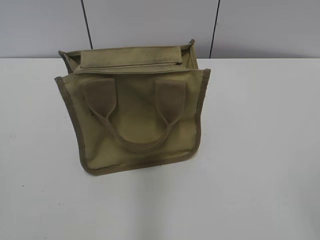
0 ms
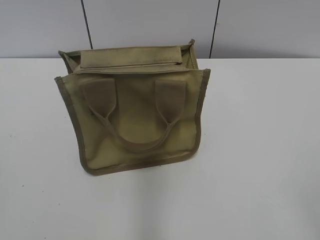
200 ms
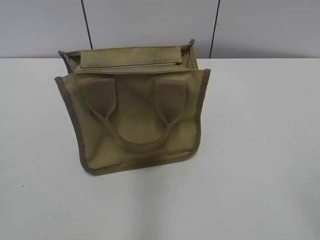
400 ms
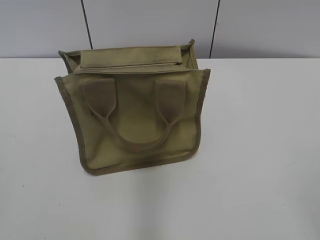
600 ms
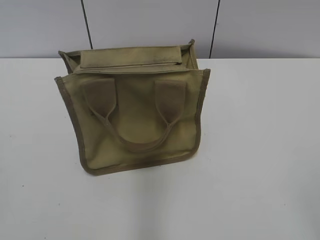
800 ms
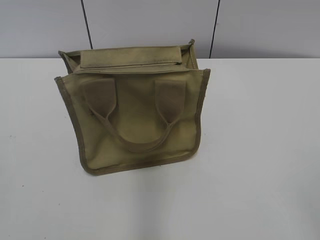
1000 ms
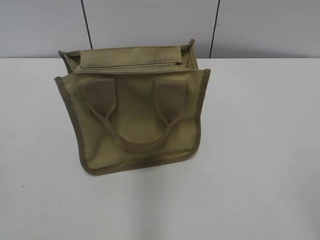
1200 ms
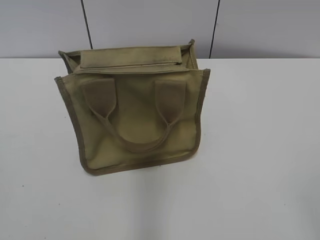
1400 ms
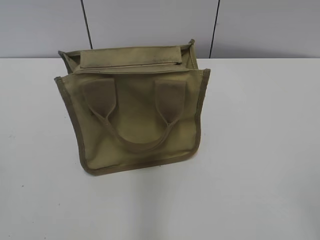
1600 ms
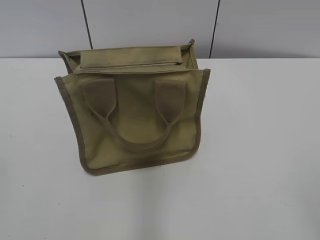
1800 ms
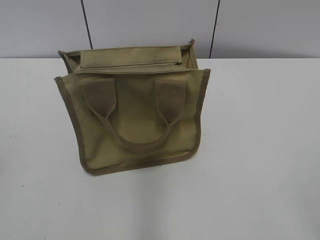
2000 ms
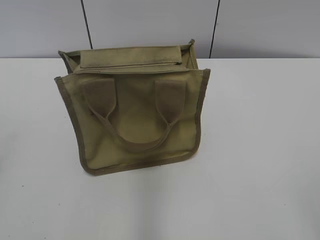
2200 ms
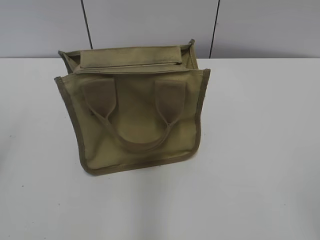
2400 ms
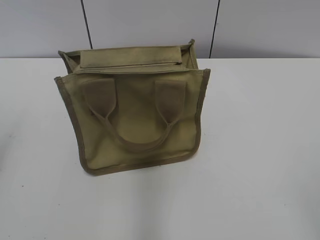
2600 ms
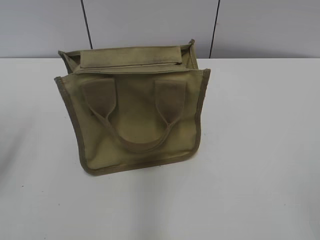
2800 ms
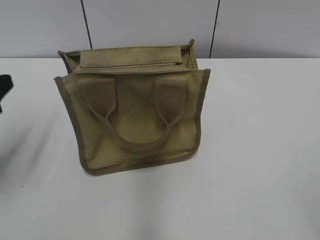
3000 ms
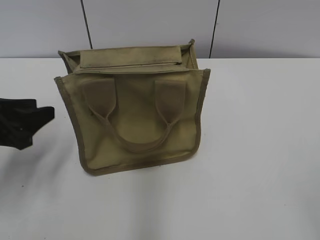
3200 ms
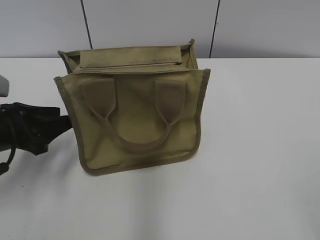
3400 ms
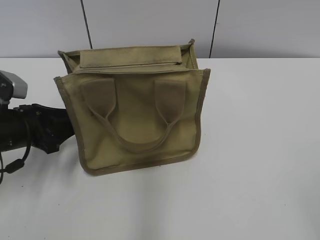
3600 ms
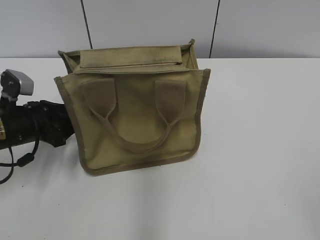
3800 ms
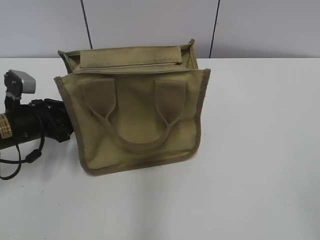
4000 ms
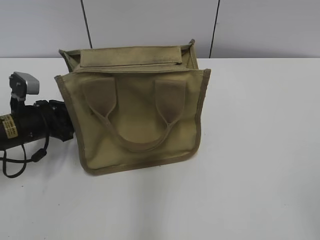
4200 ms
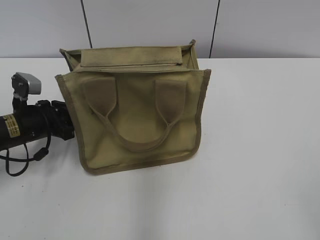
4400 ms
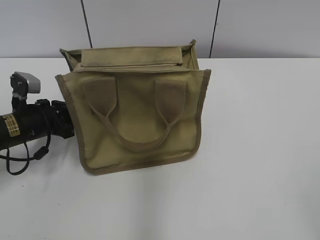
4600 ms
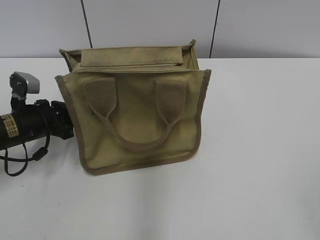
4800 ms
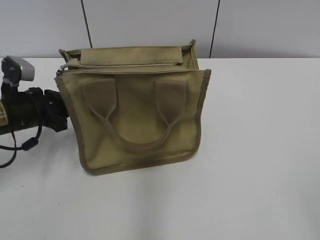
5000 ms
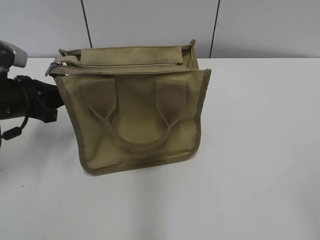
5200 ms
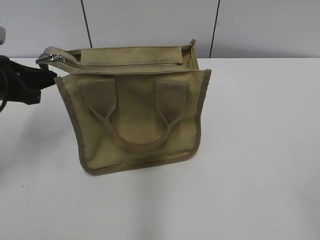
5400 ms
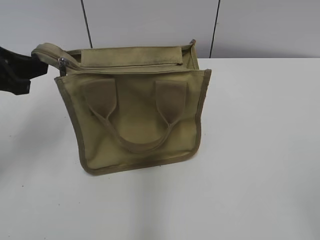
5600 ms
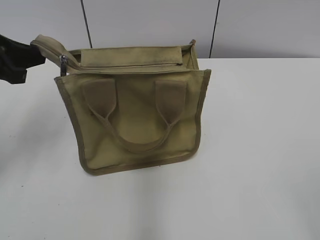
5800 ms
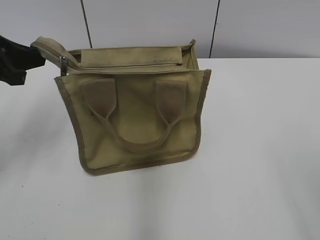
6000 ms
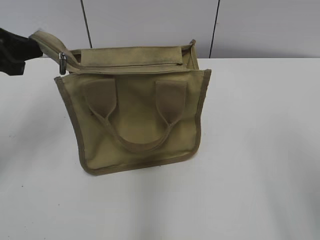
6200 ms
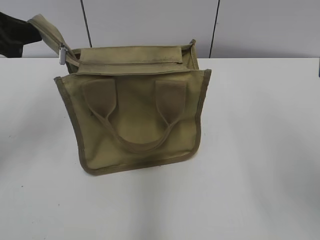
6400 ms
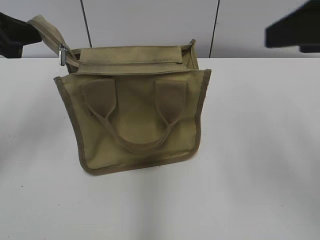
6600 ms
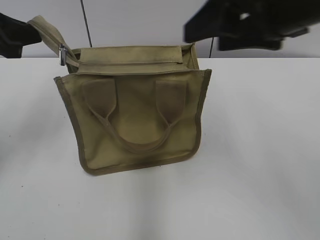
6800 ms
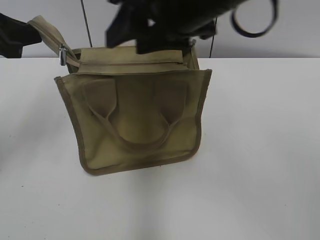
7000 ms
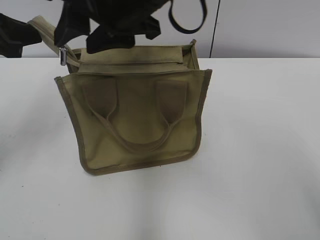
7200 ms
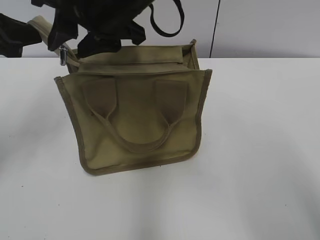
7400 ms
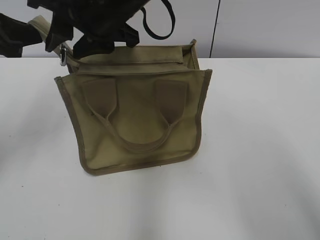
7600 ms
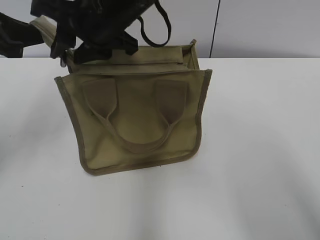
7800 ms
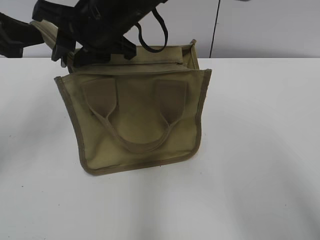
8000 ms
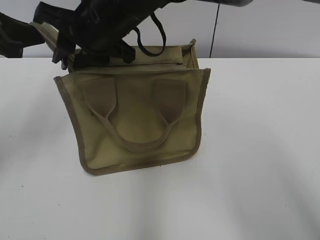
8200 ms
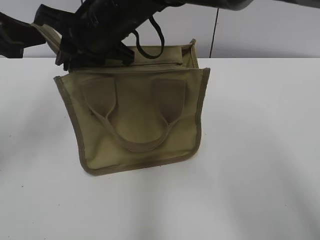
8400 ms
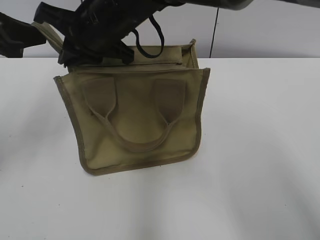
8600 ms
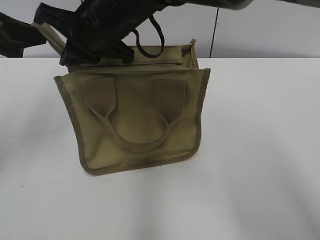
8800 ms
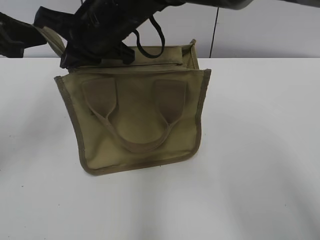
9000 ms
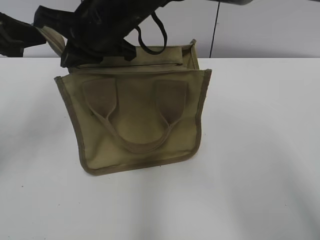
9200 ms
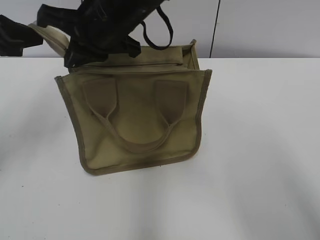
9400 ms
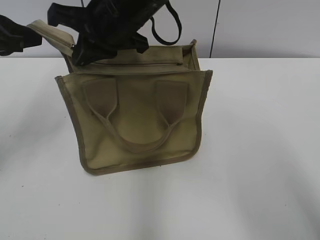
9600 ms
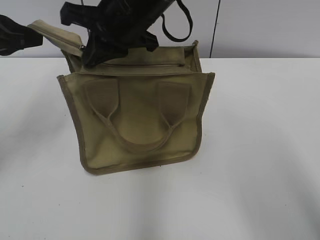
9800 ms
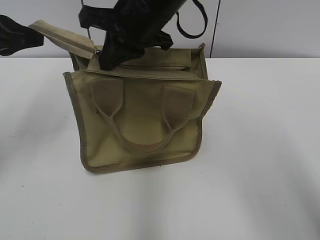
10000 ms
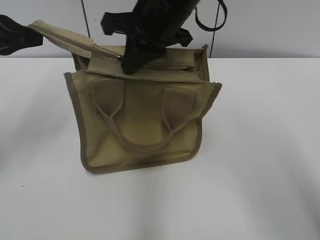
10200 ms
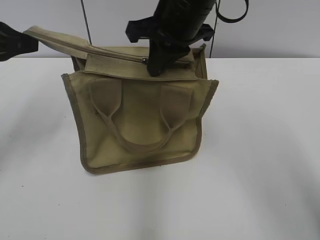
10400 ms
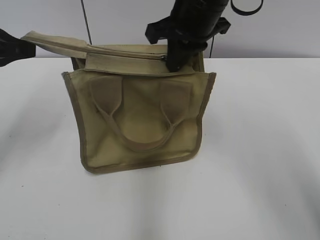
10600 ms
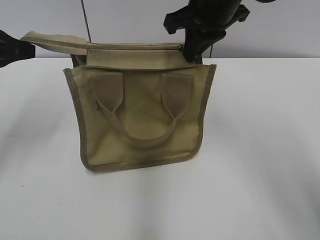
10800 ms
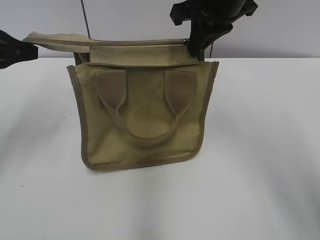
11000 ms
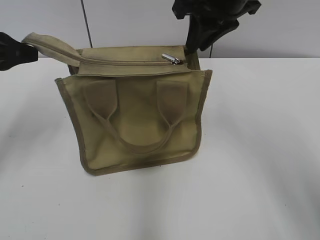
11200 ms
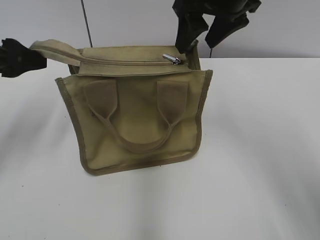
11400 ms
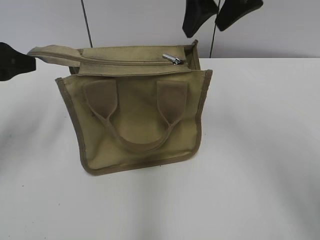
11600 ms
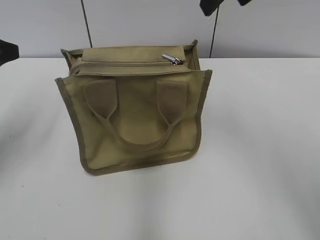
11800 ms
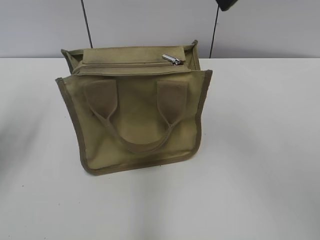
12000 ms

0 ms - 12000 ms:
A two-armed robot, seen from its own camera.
Step, 0 ms - 11000 ms: Zip up the bag with your right hand.
Step, 11200 ms - 11600 ms: Grab the zipper with your left hand.
1600 ms - 3000 ms: The left gripper shifts approximately 20 cm forward.
3000 ms - 4400 ms: The left gripper shifts roughly 20 cm downward, forward and to the right.
4400 ms - 6000 ms: The left gripper goes roughly 15 cm upward, and closes its fingers.
6000 ms - 7600 ms: The right gripper heads to the left and forward, covering about 40 cm, and closes its fingers.
7600 ms - 9000 ms: The right gripper closes its fingers.
9000 ms - 10400 ms: The right gripper moves to the right, approximately 10 cm.
10400 ms - 12000 ms: The left gripper ends up roughly 5 cm from where it was, and opens, while the right gripper moves upward, to the right and backward, some 15 cm, and opens.

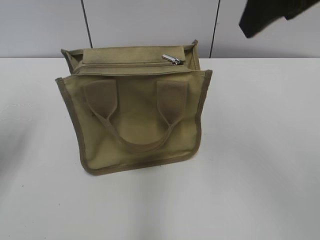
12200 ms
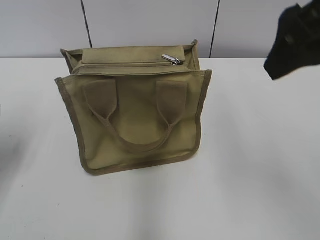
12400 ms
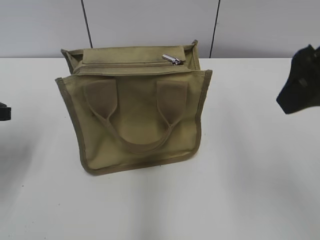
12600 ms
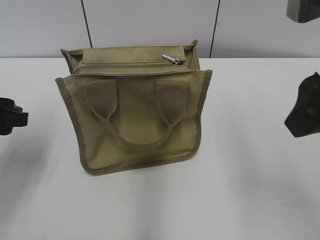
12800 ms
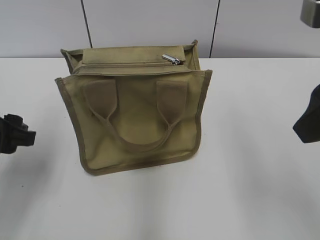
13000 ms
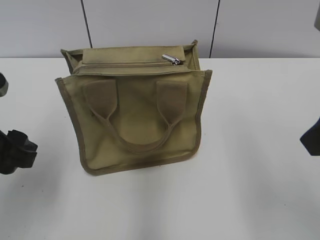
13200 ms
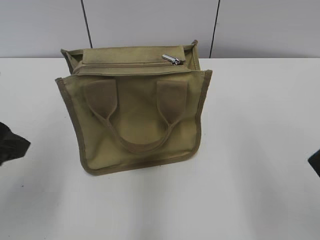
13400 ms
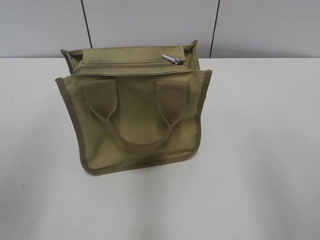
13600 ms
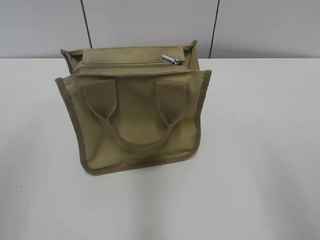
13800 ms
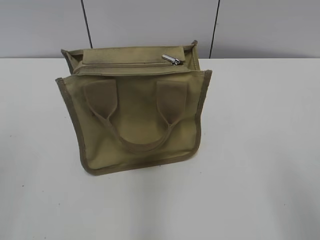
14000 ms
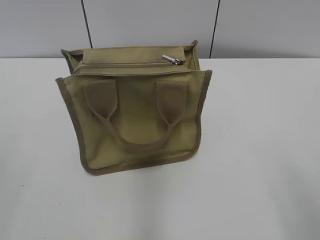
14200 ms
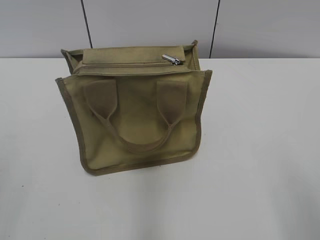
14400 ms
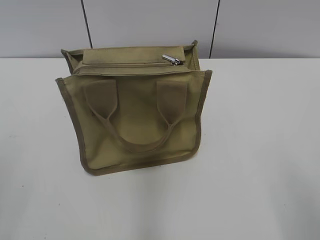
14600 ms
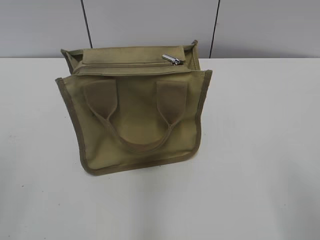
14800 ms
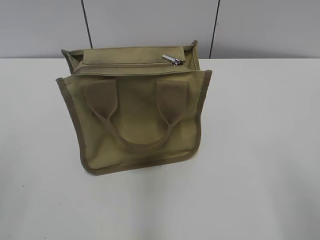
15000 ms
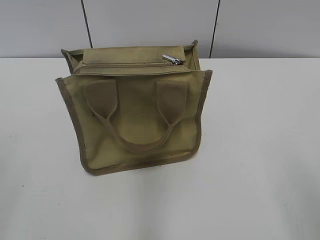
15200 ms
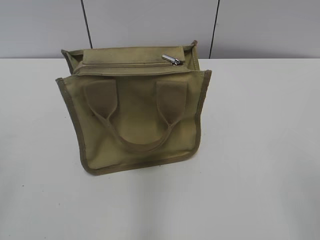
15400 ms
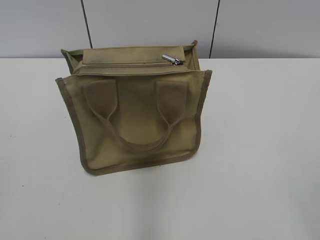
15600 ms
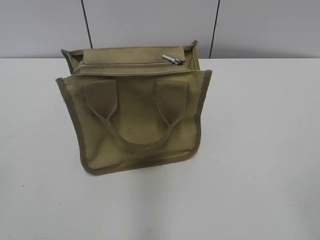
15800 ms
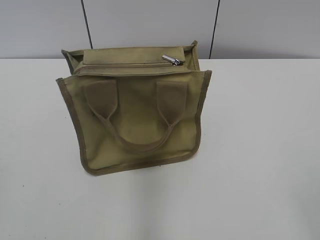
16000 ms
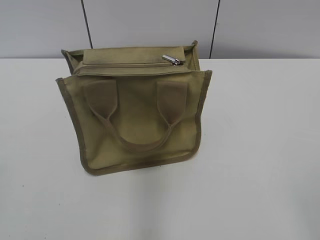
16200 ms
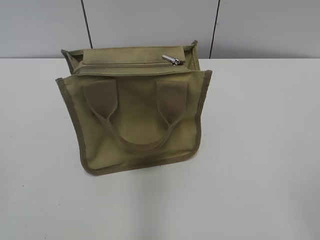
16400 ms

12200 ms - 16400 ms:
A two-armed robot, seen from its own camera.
12200 ms - 13600 ms: The left gripper is displaced backward, to the right and upward by about 15 cm, while the right gripper goes some 20 cm backward, downward and to the right.

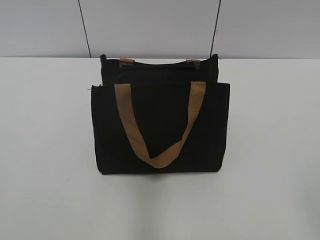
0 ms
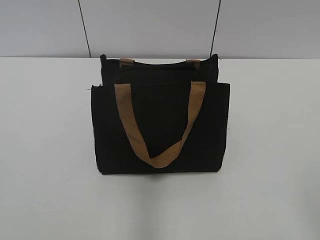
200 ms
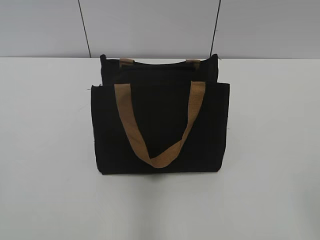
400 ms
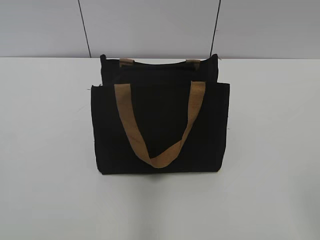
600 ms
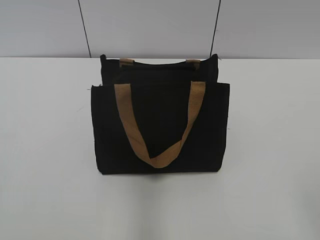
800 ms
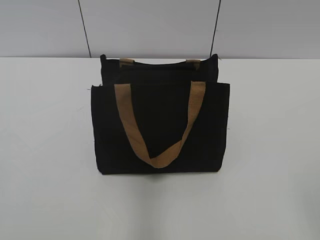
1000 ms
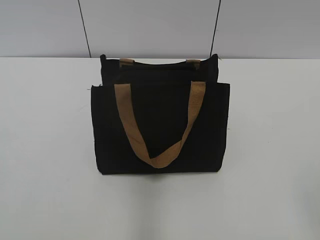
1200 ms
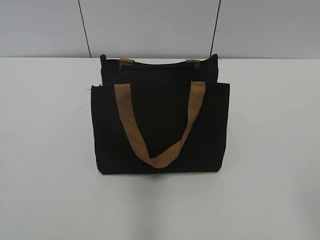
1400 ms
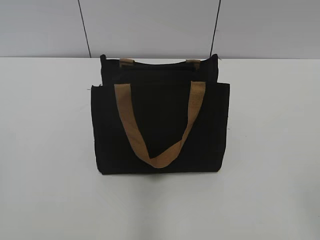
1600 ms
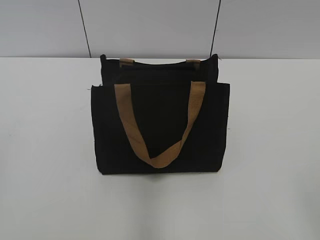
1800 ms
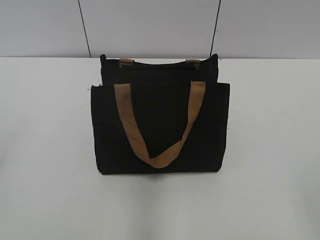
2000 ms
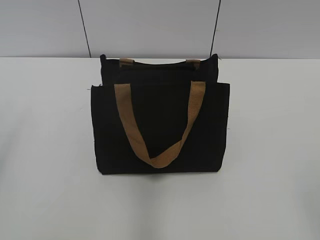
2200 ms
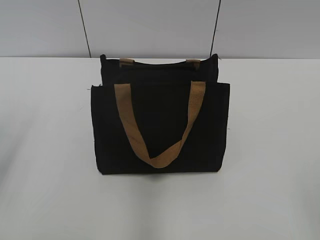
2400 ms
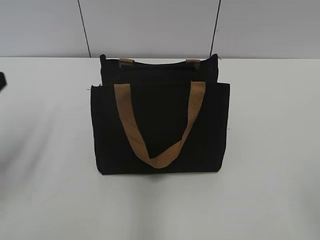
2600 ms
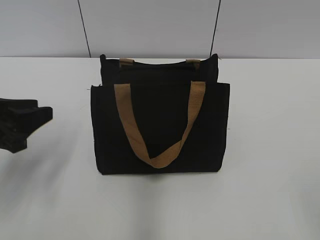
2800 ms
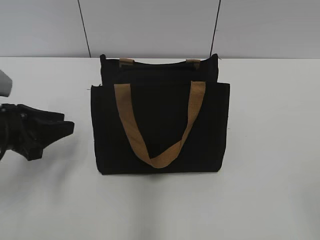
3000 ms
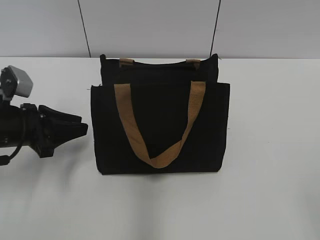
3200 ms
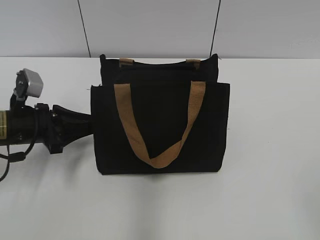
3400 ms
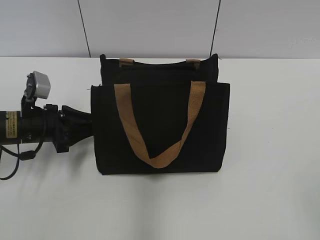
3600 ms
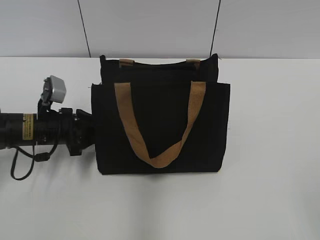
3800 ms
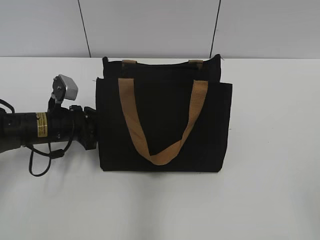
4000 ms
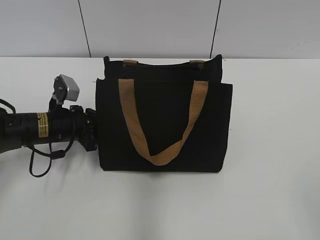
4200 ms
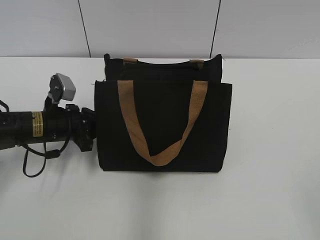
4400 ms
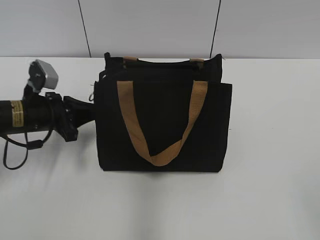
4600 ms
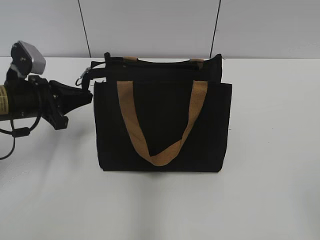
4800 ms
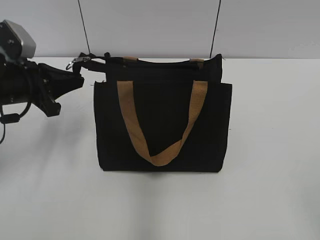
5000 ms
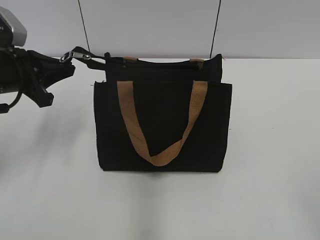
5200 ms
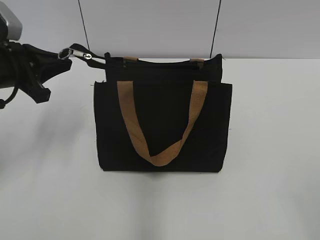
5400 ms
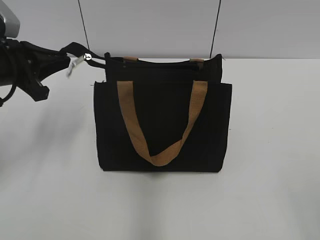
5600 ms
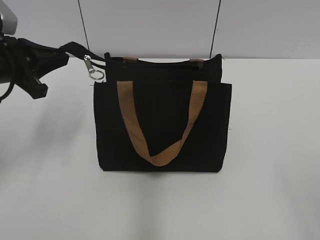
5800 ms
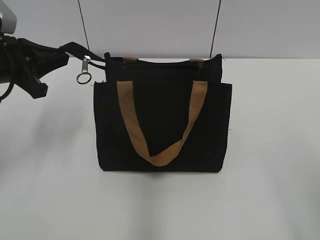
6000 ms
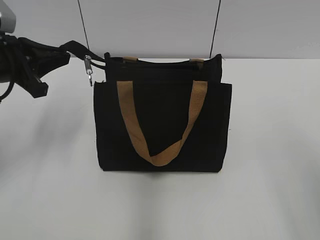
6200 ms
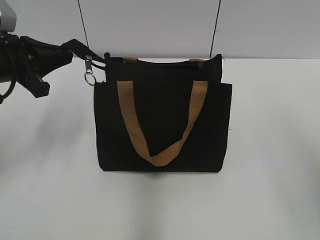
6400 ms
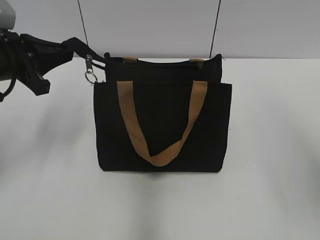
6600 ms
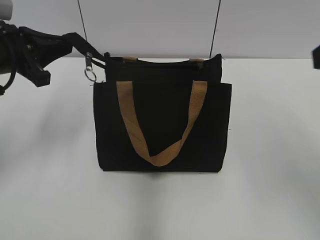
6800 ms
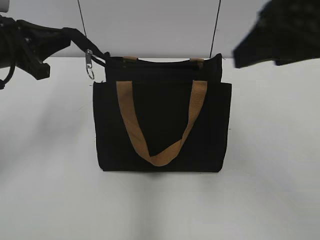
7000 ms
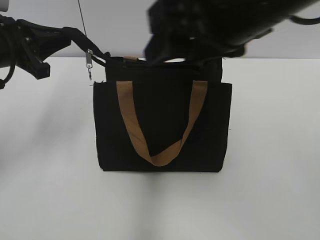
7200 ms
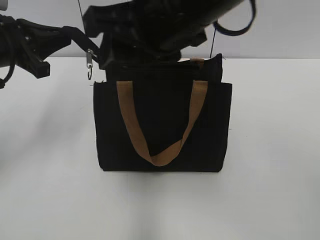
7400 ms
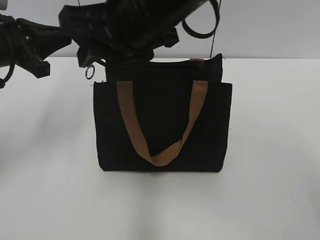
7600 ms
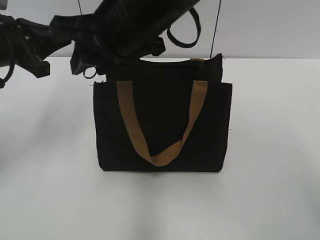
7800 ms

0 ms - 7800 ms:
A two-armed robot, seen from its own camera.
1600 ms - 3200 ms: The left gripper travels forward and downward by about 30 cm, and closes its fingers.
3200 ms - 4600 ms: The left gripper heads forward, covering some 5 cm, and closes its fingers.
4600 ms - 6200 ms: The left gripper shifts roughly 10 cm upward.
6200 ms - 7800 ms: The right gripper shifts roughly 35 cm to the left and forward, and closes.
